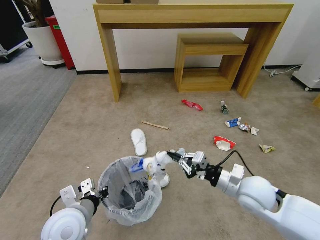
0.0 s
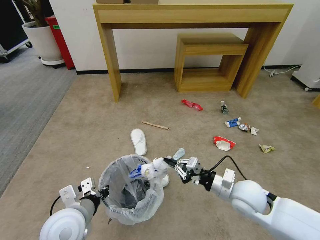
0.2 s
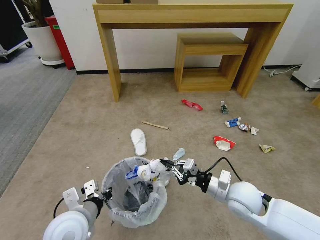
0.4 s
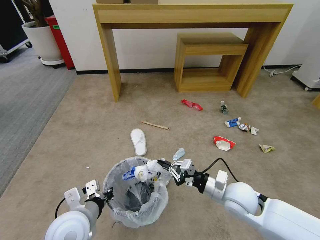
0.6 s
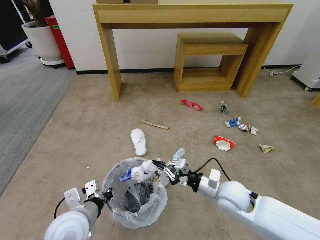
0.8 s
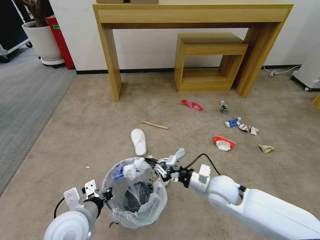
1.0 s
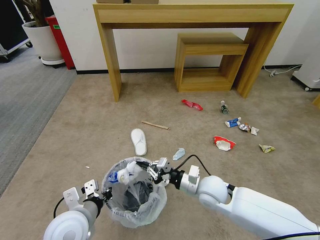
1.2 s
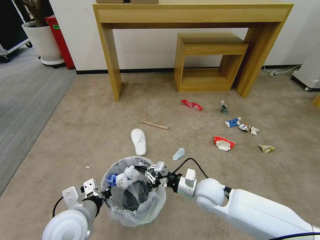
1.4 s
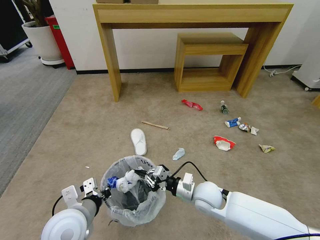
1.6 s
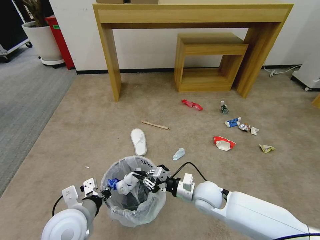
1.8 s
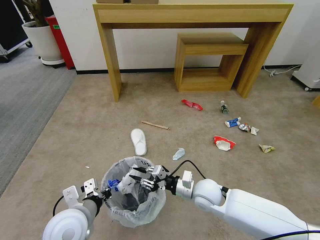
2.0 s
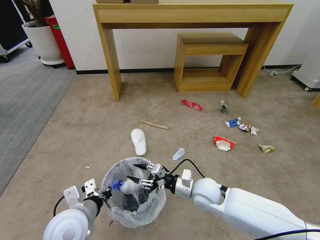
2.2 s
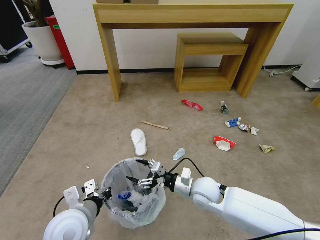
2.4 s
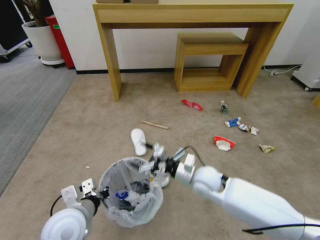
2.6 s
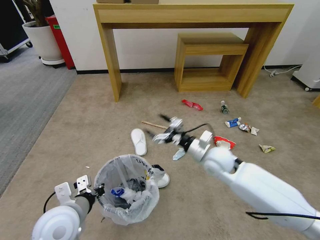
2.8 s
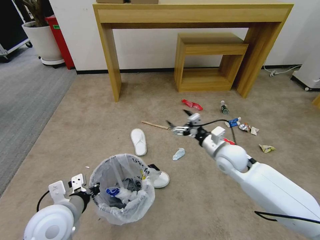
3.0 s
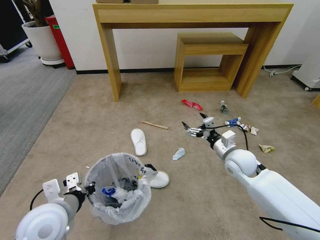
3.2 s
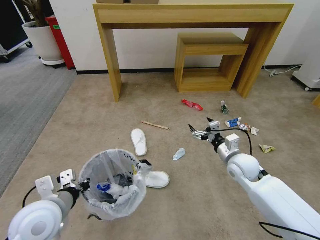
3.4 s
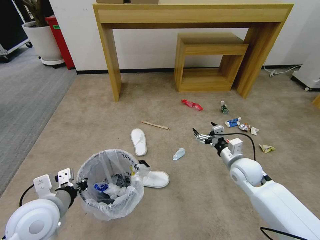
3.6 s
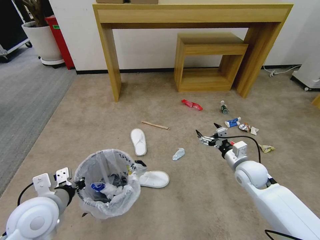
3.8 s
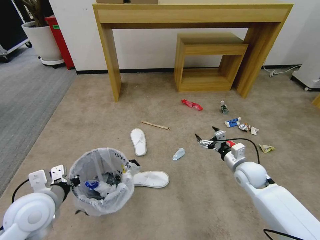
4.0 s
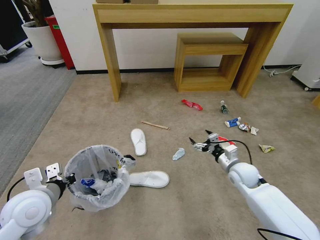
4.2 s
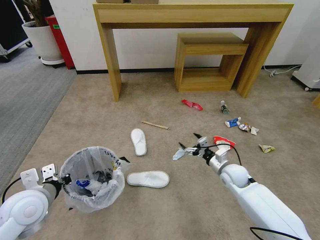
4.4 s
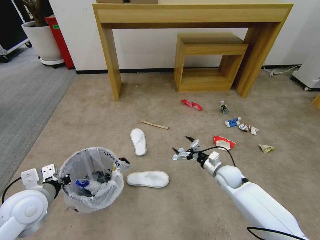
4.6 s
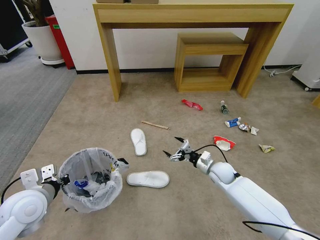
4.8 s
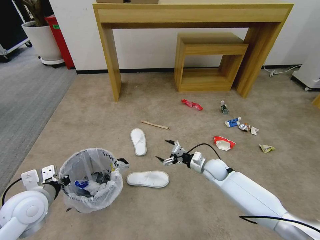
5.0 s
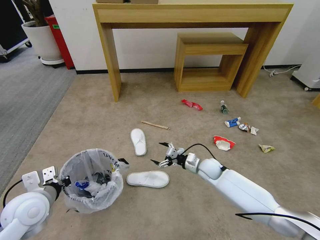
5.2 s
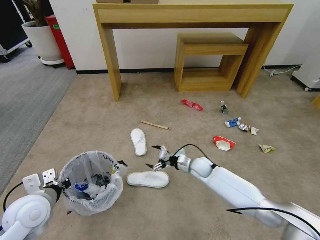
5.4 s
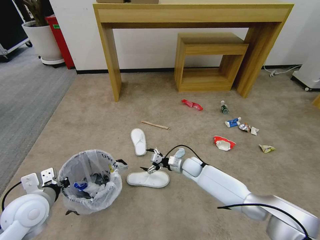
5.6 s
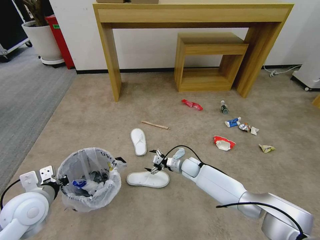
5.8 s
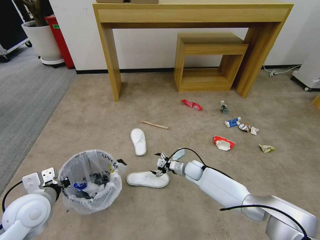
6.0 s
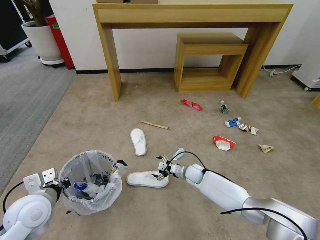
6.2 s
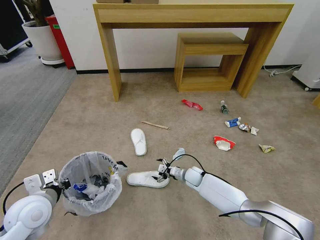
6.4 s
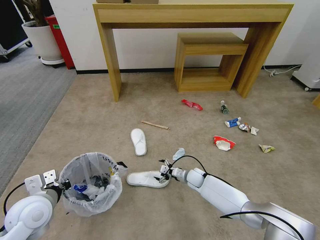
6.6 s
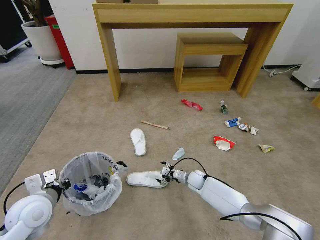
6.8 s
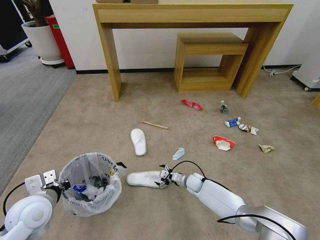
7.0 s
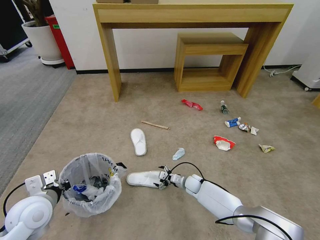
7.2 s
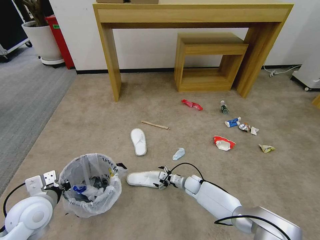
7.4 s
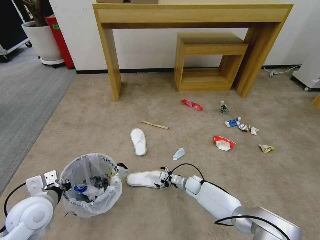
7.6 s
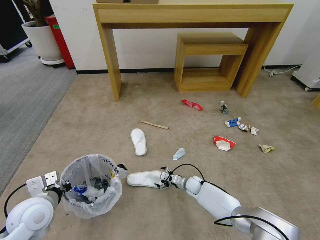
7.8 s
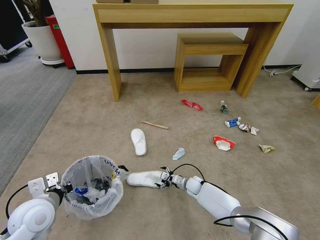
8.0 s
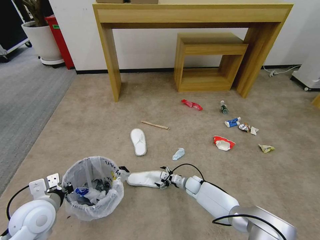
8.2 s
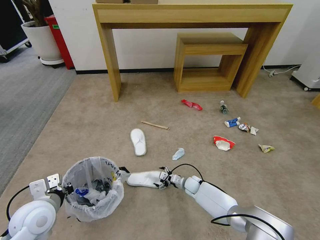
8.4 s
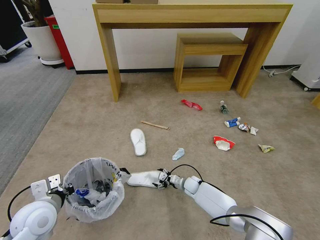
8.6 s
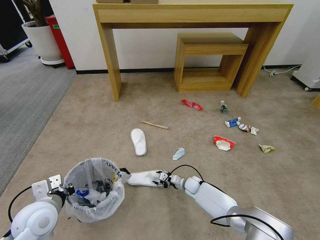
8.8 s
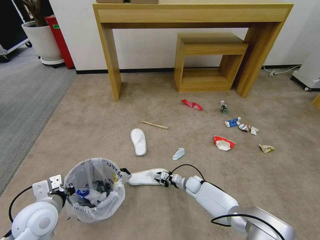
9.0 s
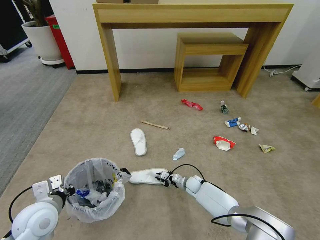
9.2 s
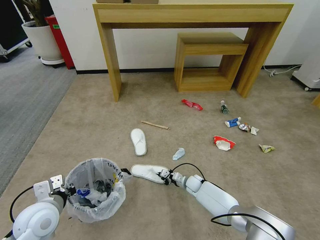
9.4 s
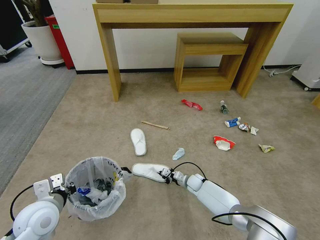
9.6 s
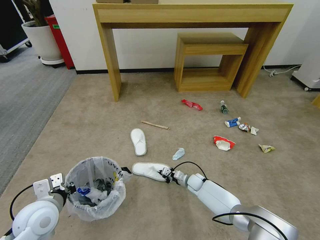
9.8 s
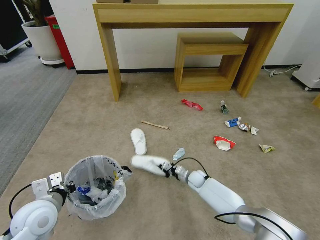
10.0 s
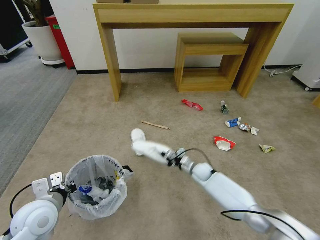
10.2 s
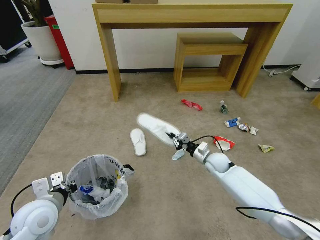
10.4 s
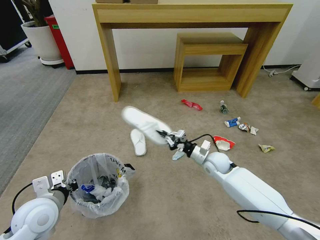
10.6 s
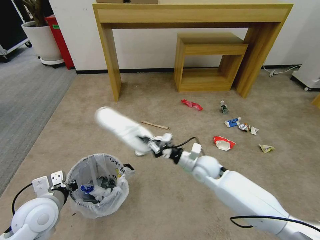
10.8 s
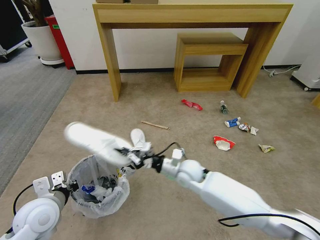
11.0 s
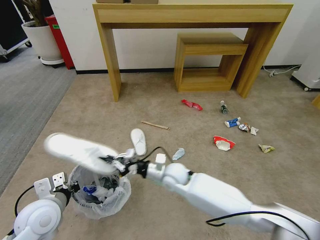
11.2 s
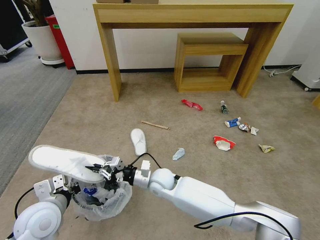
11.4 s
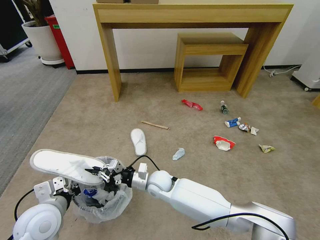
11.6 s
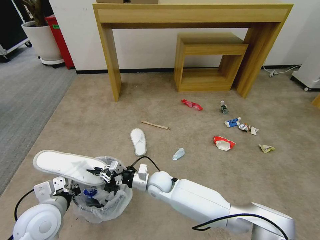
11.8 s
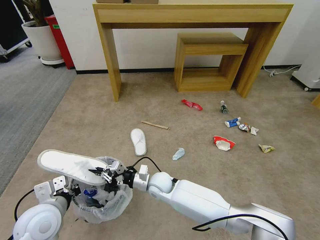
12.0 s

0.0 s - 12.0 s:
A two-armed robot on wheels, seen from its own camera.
Task of the whole recording: Pick up the trash bin and place the garbage on the floor into it.
0.0 s - 1.6 s: The right gripper is displaced to the left and downward by roughly 15 cm.
1.6 s - 3.0 s: The right gripper heads upward, forward and to the right, covering approximately 15 cm, and opens.
3.0 s - 4.4 s: The right gripper heads downward and to the right, covering approximately 15 cm; the left gripper heads to the left, covering approximately 10 cm.
4.4 s - 6.0 s: The right gripper is displaced to the left, downward and forward by roughly 20 cm.
6.0 s - 7.6 s: The right gripper is displaced downward by approximately 10 cm.
7.6 s - 9.0 s: The right gripper closes.
9.0 s - 10.4 s: The right gripper heads upward and to the right, covering approximately 20 cm, and closes up.
10.4 s - 12.0 s: The right gripper is displaced to the left by about 25 cm.

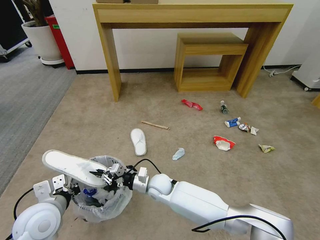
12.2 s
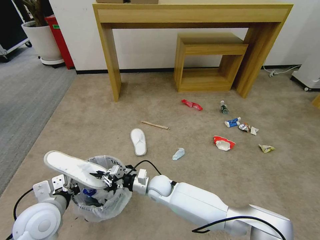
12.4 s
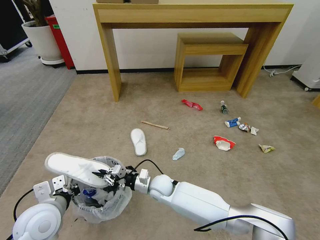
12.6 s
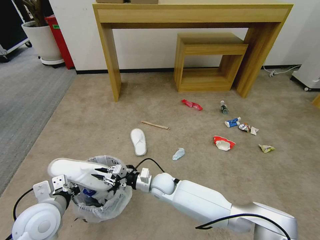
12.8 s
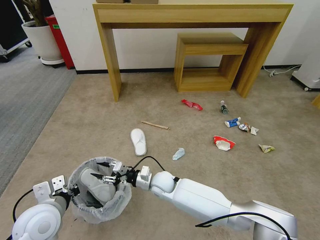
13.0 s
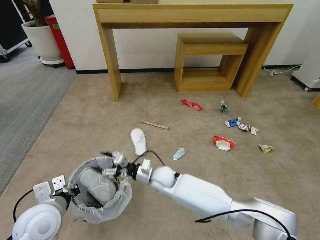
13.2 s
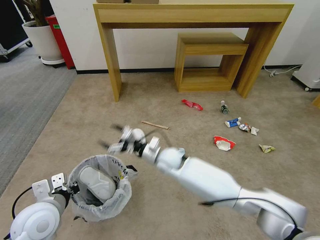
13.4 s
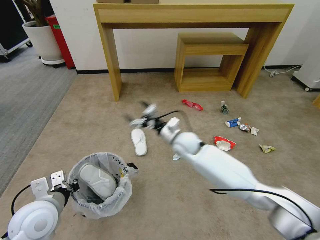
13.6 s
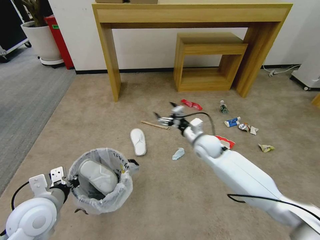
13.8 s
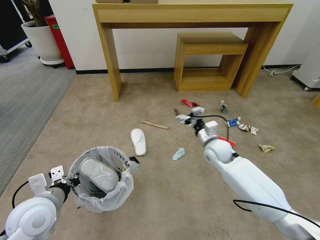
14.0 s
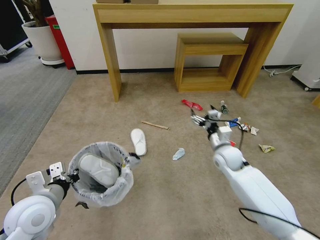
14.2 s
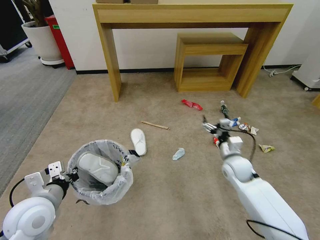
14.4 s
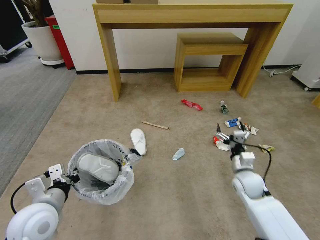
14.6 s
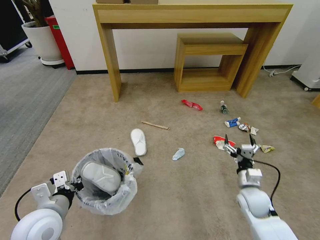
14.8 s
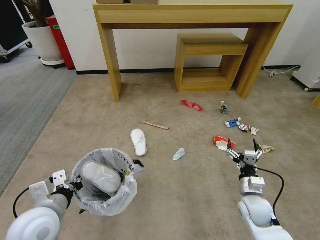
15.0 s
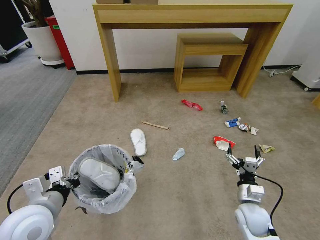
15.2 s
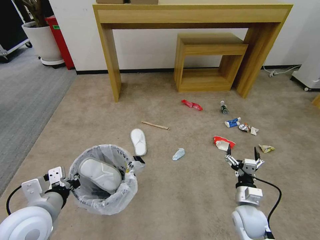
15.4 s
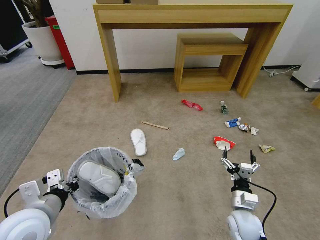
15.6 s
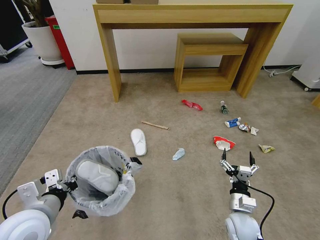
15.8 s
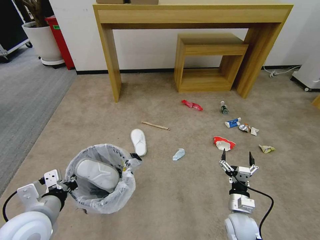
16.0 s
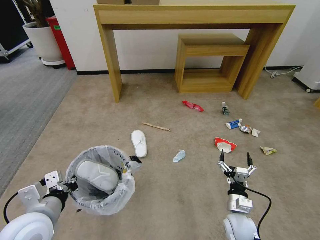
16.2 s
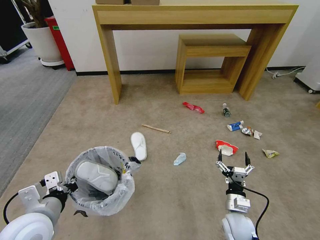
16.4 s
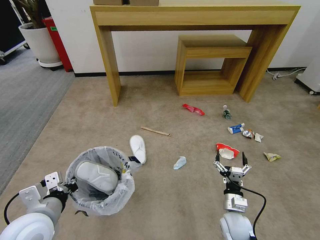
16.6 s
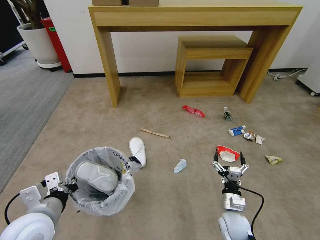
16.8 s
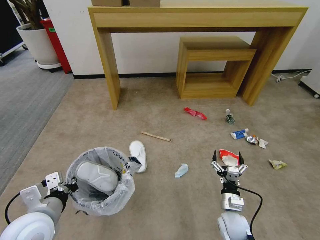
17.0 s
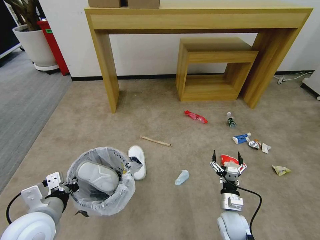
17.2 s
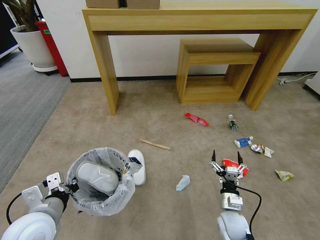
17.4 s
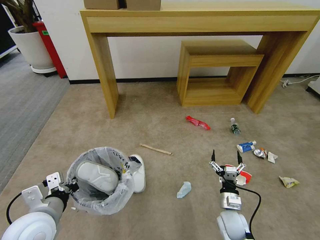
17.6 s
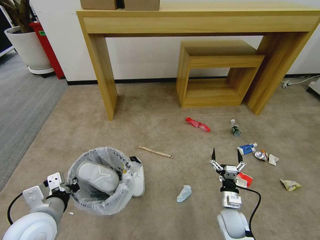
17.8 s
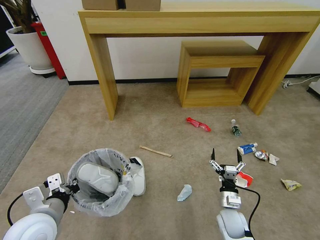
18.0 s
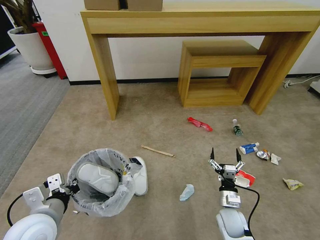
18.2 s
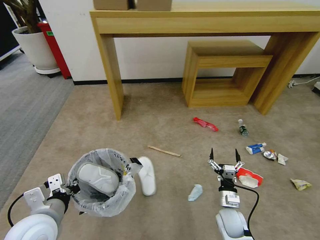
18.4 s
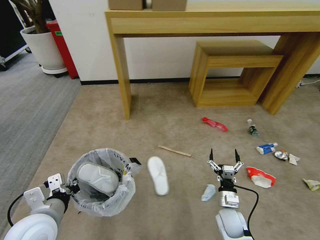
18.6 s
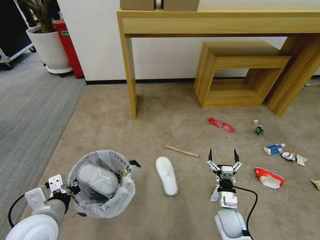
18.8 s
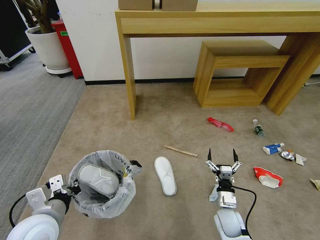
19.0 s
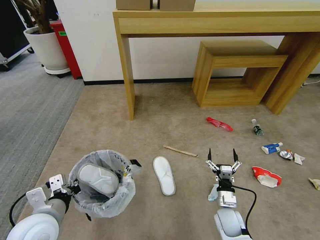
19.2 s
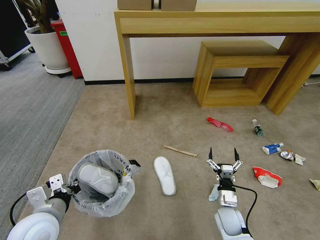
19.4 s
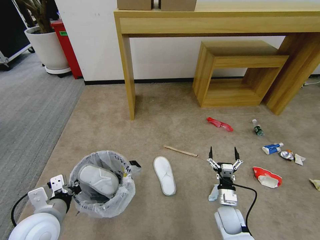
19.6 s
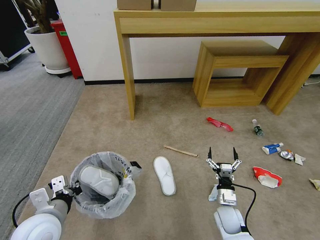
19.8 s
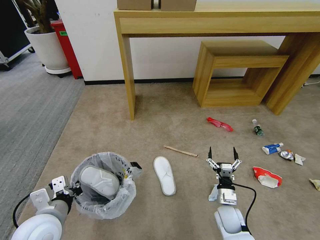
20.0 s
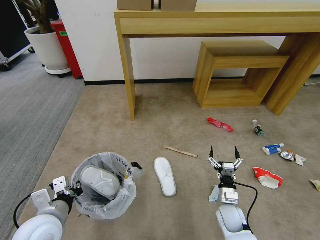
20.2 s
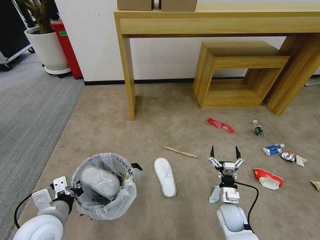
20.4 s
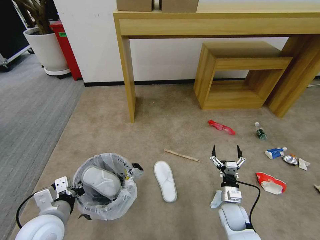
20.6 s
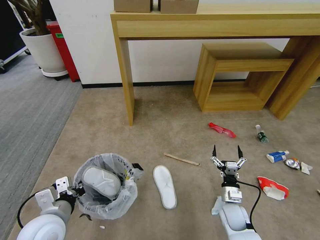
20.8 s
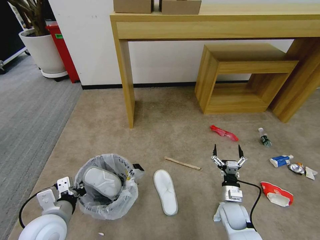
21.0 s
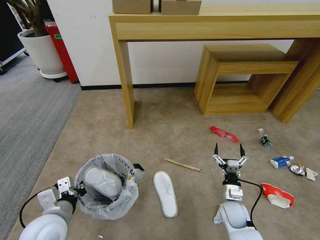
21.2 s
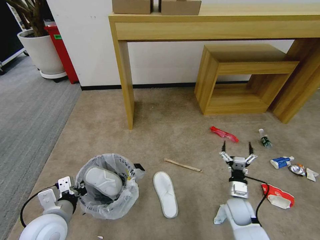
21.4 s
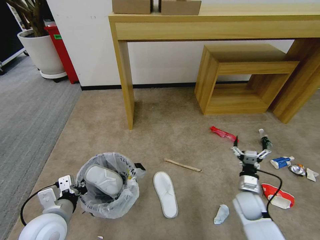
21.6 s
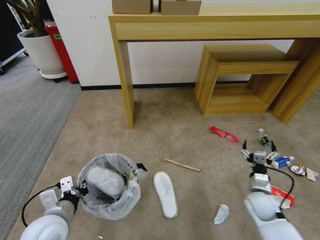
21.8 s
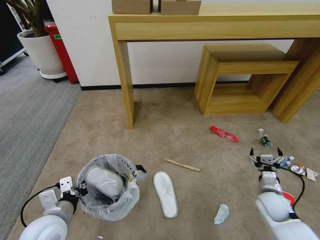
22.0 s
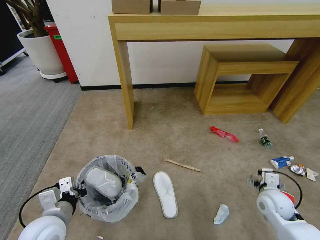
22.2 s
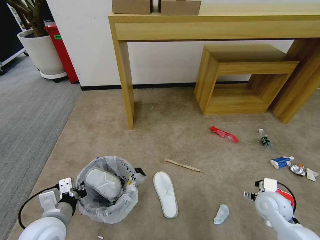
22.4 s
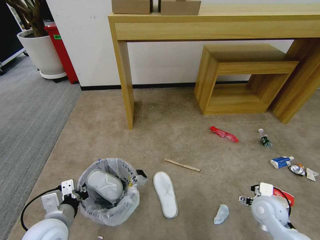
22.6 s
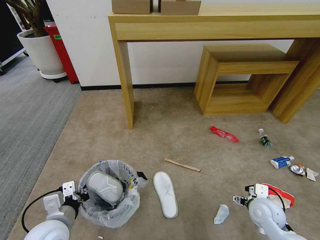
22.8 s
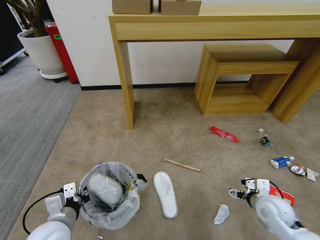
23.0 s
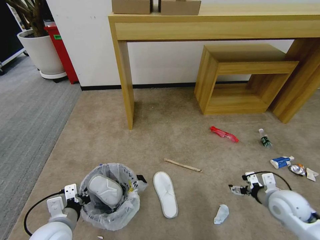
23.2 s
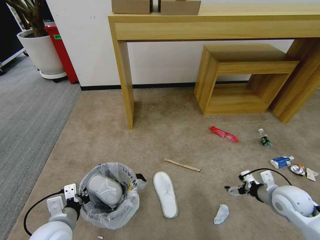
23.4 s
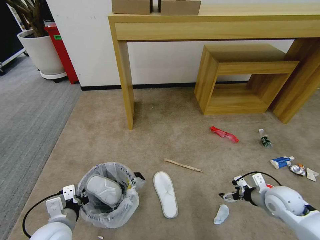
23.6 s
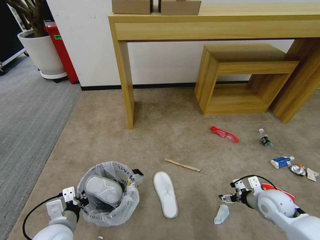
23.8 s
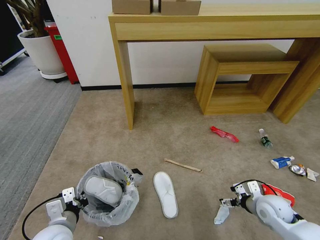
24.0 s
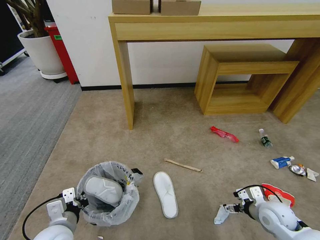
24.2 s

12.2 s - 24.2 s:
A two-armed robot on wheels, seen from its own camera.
Task of the whole recording: Pick up the trash bin and place the garbage on the floor into it.
12.2 s - 13.8 s: The right gripper travels to the right, upward and forward by about 25 cm, and opens up.
13.8 s - 15.2 s: The right gripper shifts some 30 cm backward, to the right and downward.
15.2 s - 16.6 s: The right gripper moves some 5 cm.
21.2 s - 22.6 s: The right gripper moves upward and to the right, roughly 10 cm.
